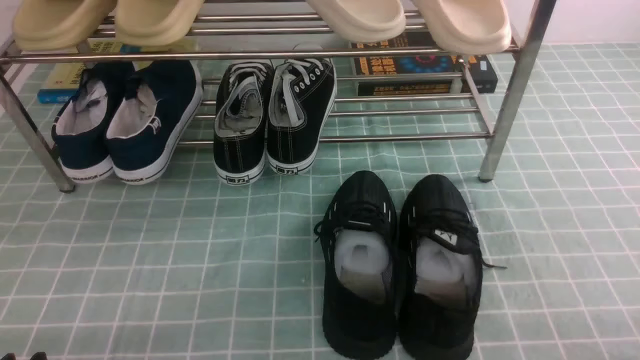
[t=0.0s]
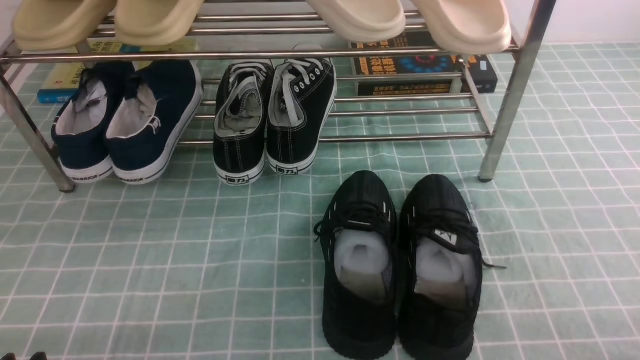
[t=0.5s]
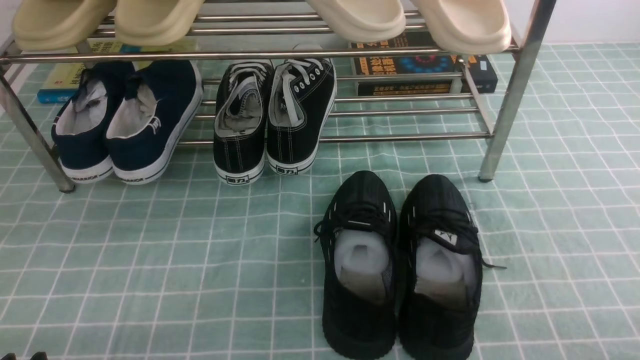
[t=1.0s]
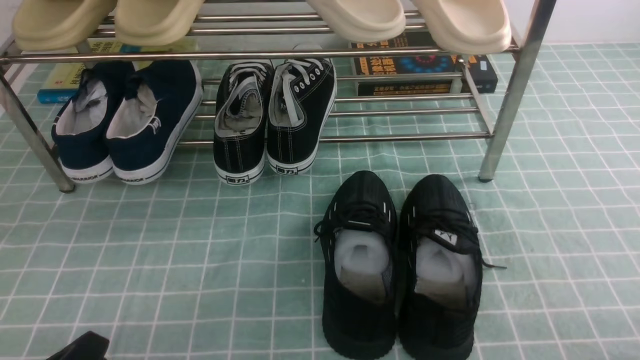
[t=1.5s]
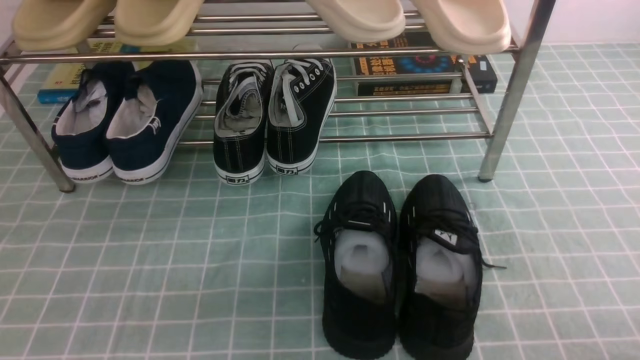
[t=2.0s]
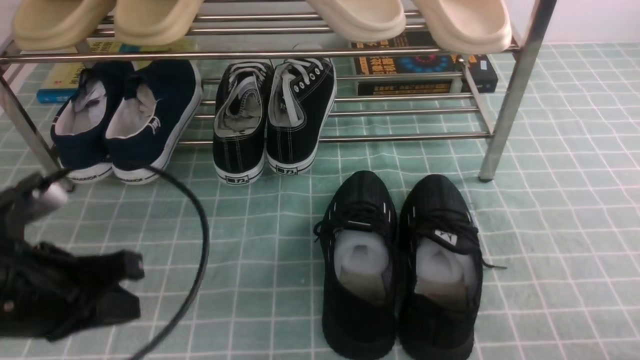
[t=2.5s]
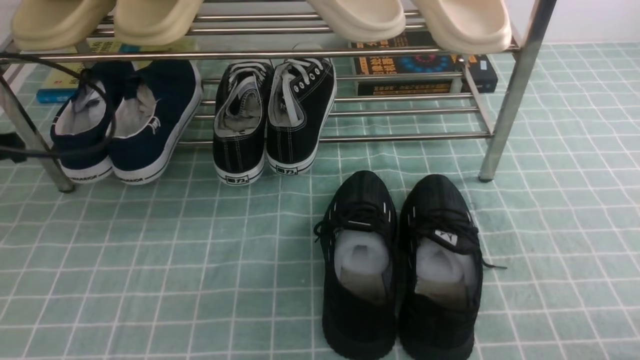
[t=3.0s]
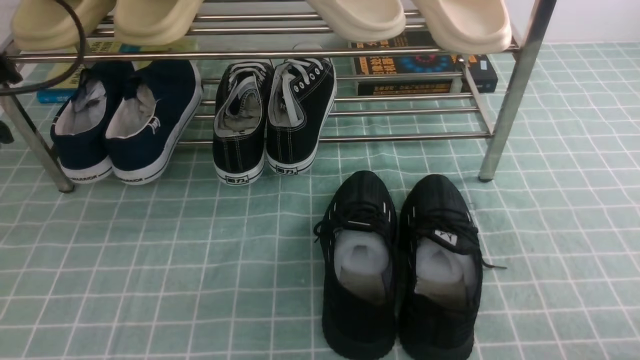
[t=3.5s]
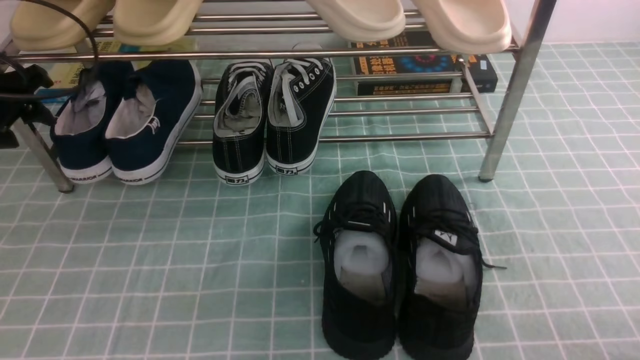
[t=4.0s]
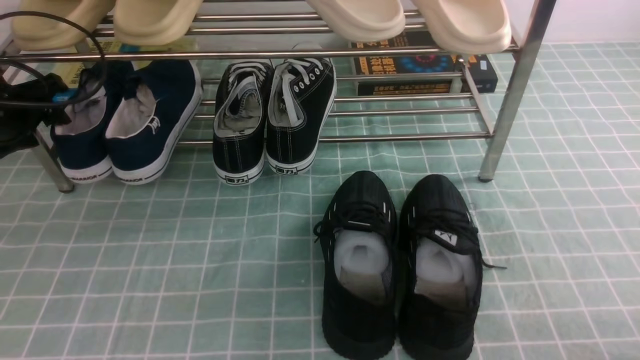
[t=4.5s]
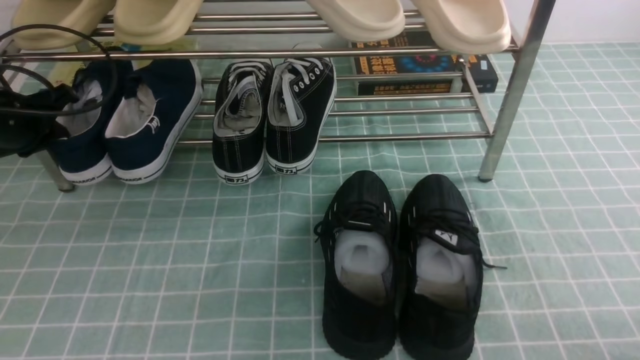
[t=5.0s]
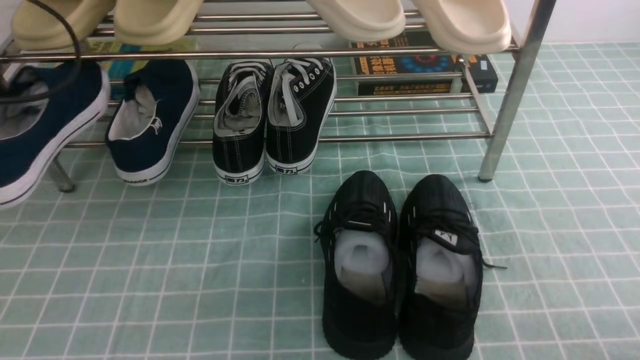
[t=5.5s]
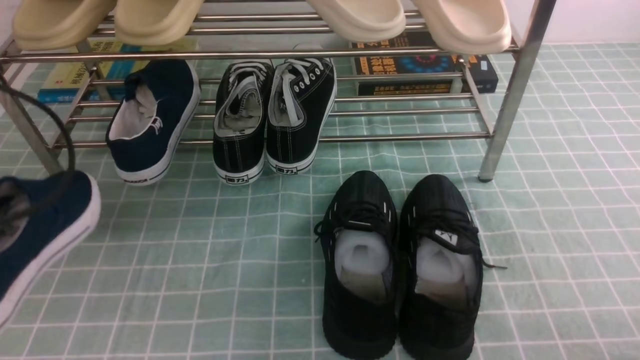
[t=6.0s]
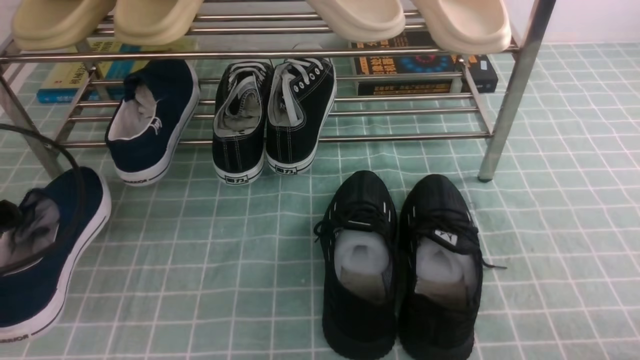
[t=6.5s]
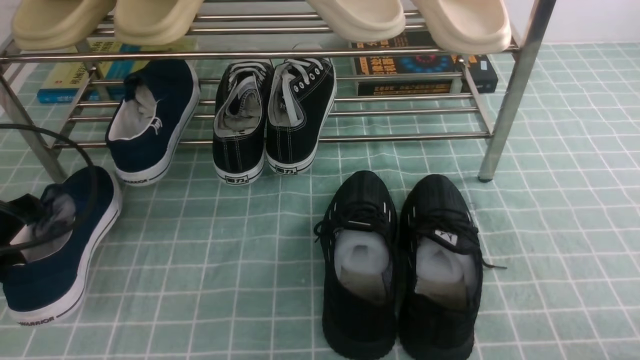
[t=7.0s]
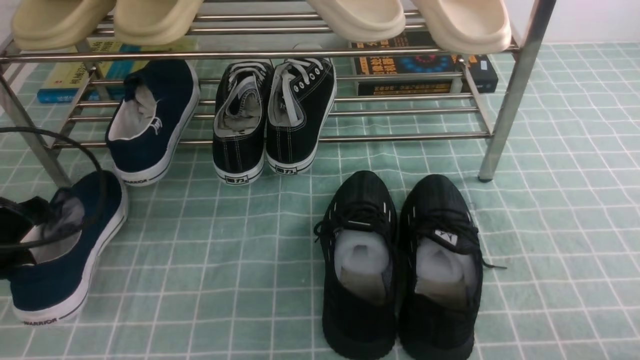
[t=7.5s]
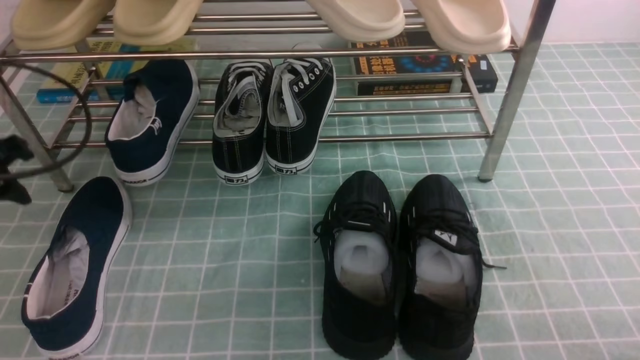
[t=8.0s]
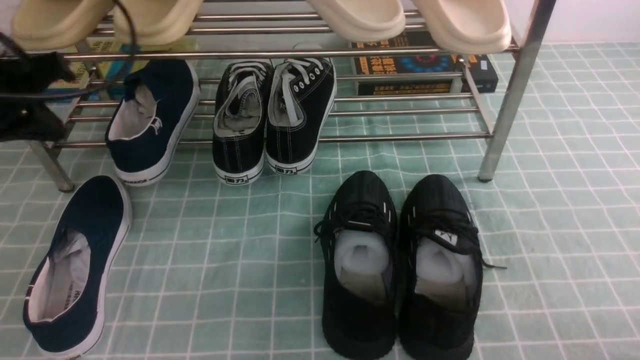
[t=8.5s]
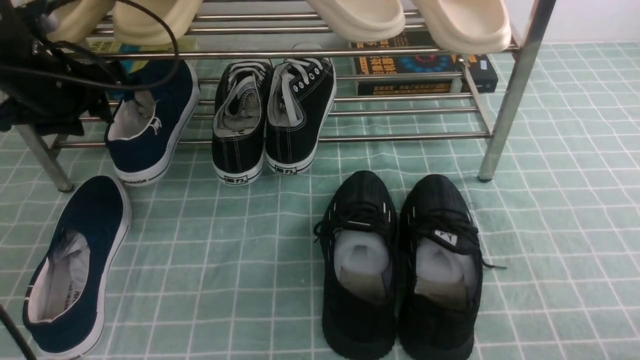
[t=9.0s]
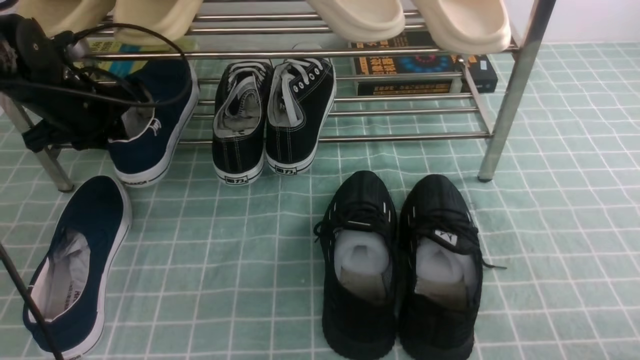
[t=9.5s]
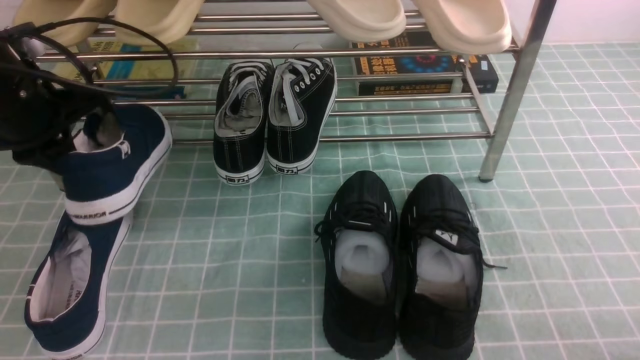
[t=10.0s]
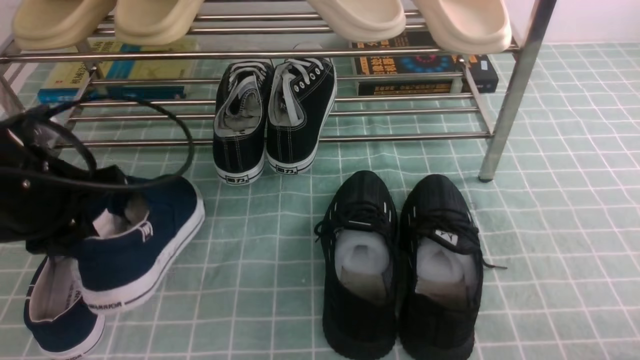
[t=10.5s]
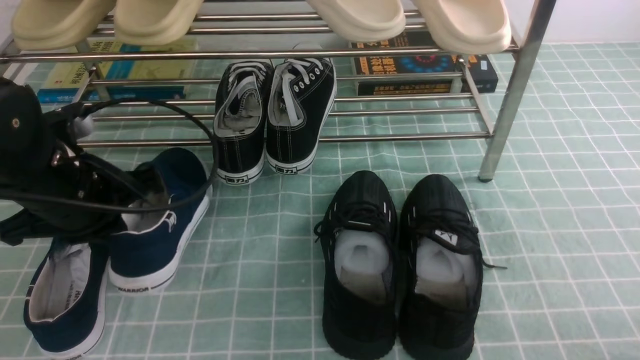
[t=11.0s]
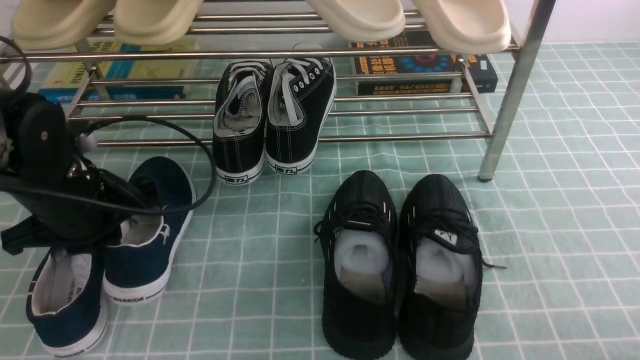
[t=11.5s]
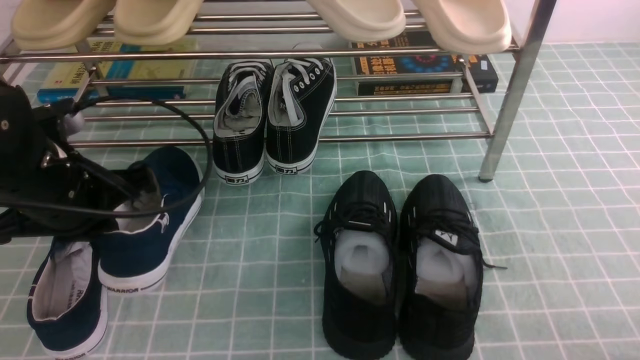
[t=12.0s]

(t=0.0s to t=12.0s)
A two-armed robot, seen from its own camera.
Step, t=0.0s - t=5.0s: use the left arm to clamp a shoe on the left side of the shoe rack.
Step, t=5.5s - t=7.5s: Use your left arm to remove the clamped shoe from the shoe rack and put it down.
Step, t=8.0s - t=9.0s: use the left arm to clamp a shoe on the left side of the shoe rack.
t=2.0s - t=4.0s: The left gripper shifts roughly 30 cm forward, and opens.
t=4.0s - t=6.0s: The left gripper shifts approximately 15 cm backward, and closes.
t=6.0s - t=8.0s: The left gripper moves forward, about 5 cm, reaches approximately 10 cm downward, then returns, and opens.
t=8.0s - t=10.0s: The left gripper heads forward and to the right, covering some 10 cm, and closes up.
t=10.0s - t=12.0s: The left gripper is displaced backward by roughly 5 cm.

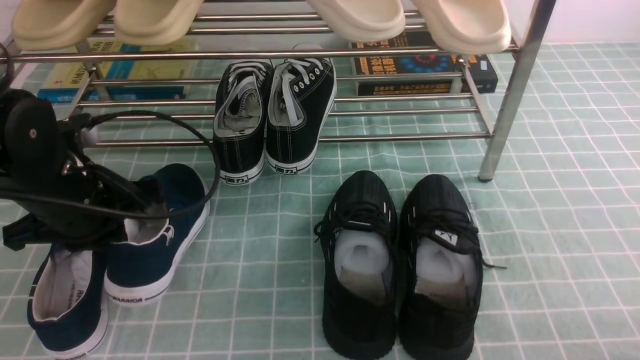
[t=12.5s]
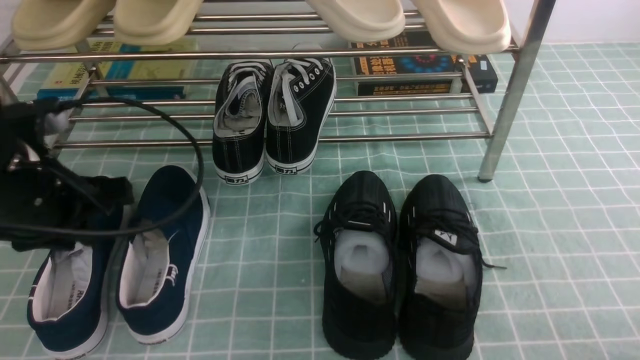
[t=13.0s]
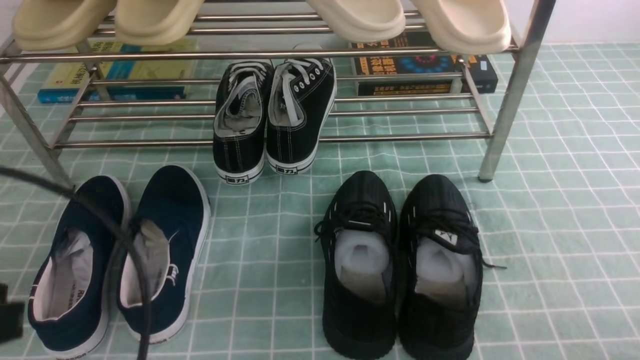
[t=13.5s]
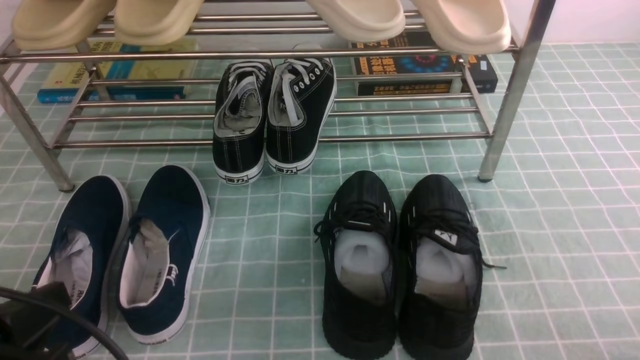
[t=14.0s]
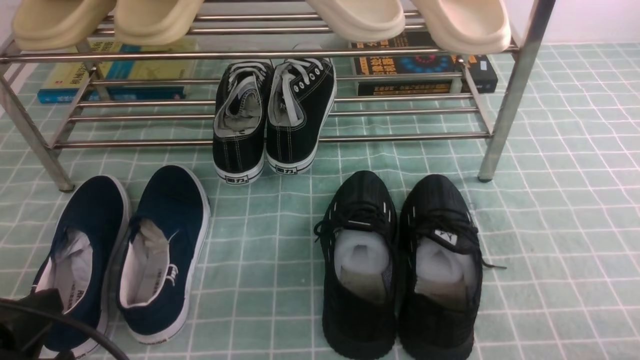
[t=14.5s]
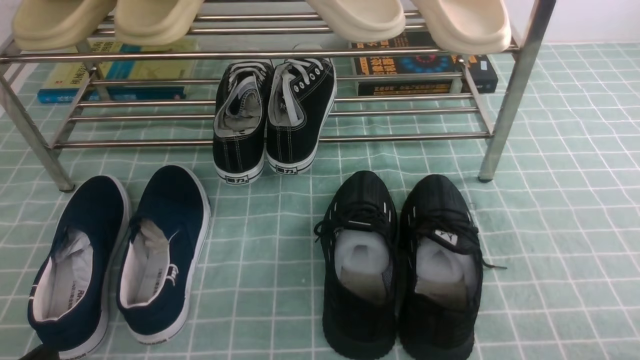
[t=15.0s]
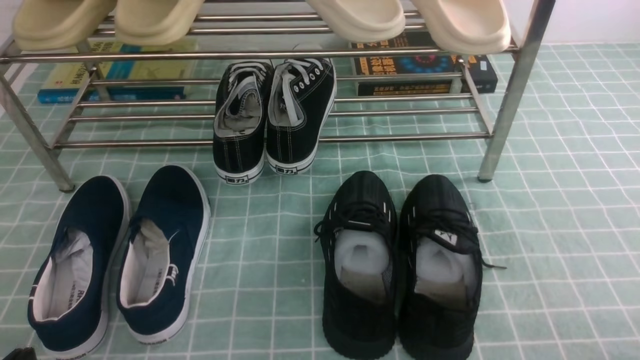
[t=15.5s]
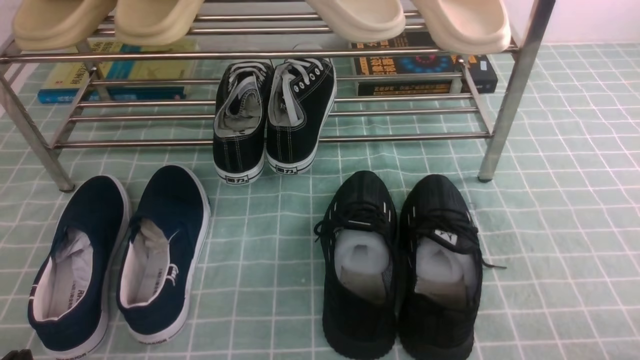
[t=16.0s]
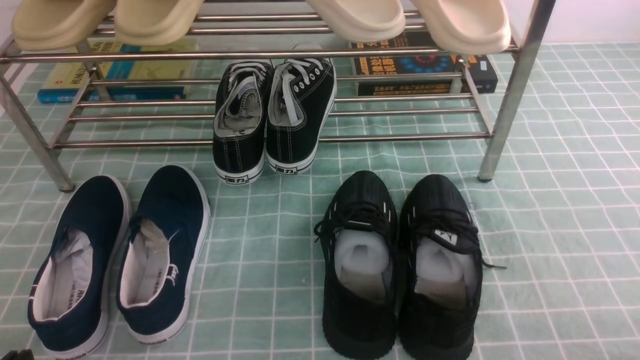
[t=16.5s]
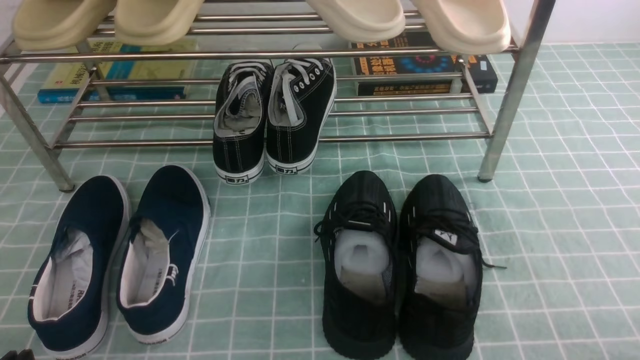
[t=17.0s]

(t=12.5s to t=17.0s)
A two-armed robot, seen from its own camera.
t=12.5s - t=14.5s: The left gripper goes roughly 20 cm backward.
t=14.5s - t=17.0s: The left gripper shifts about 5 cm downward.

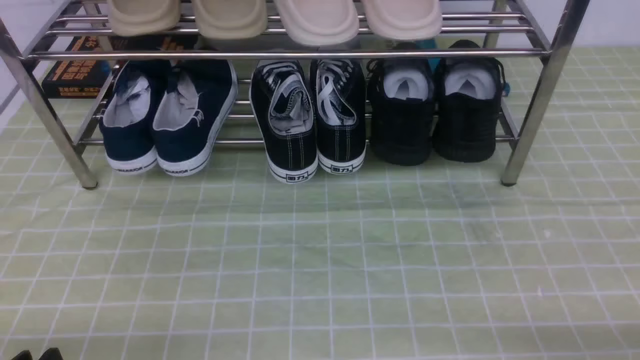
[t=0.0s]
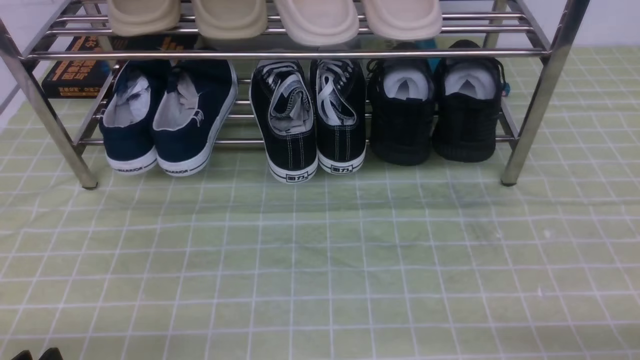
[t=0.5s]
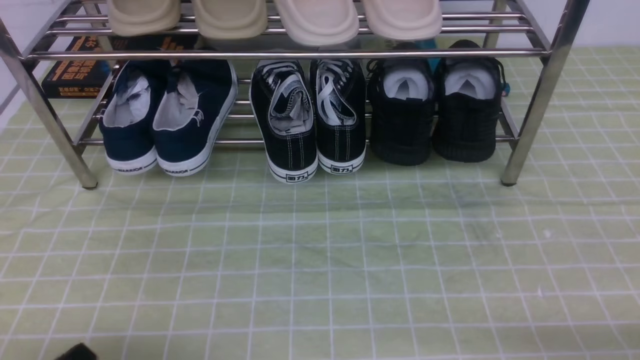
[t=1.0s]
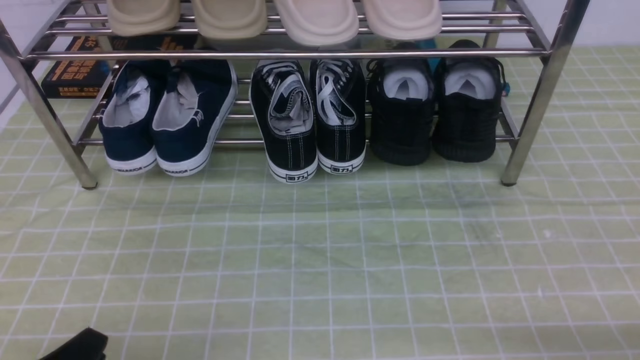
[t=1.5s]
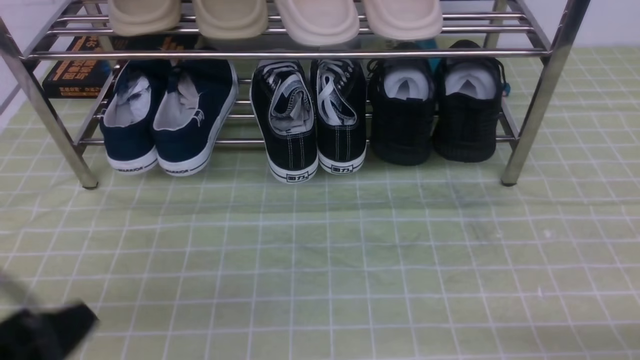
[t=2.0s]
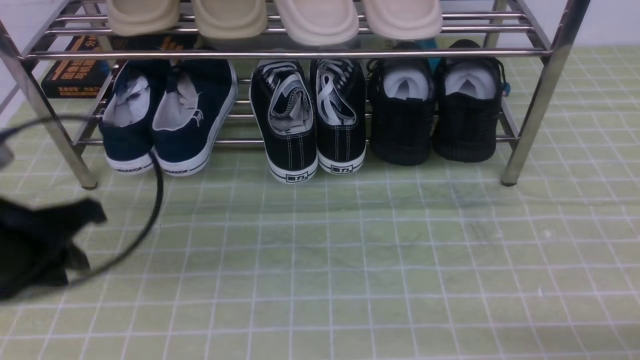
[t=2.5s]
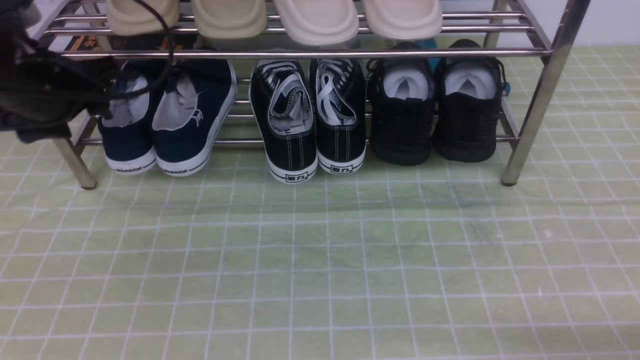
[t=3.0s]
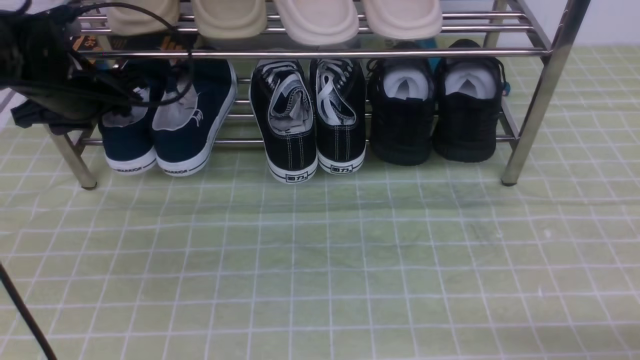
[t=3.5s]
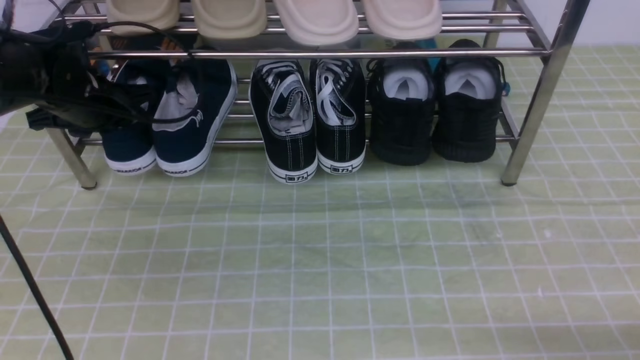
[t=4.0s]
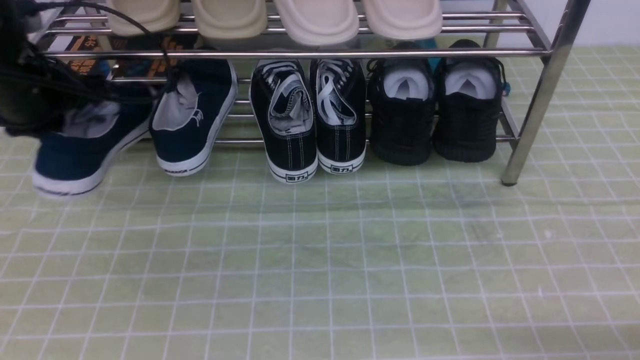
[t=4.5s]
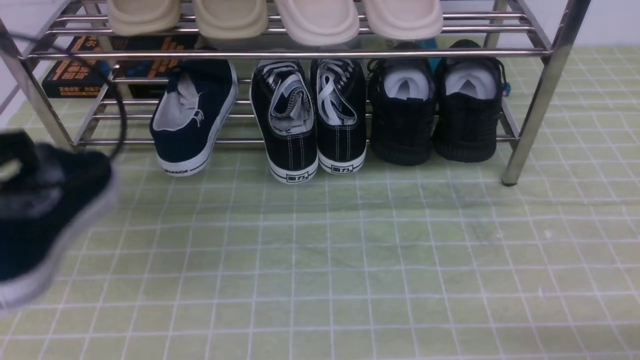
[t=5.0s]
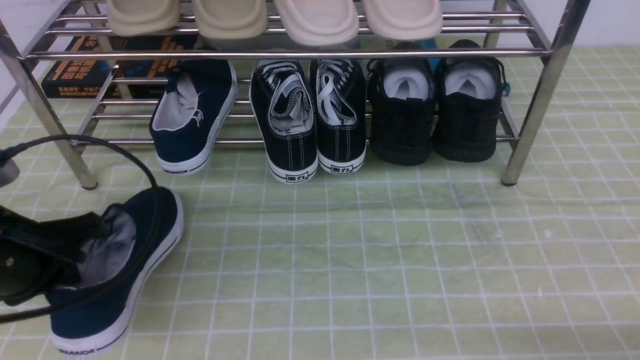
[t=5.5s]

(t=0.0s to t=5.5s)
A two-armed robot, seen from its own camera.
Step, t=0.0s - t=4.0s: use the left arm to clamp a shoe on the left side of the shoe rack.
t=0.0s - t=2.0s: The left gripper goes approximately 10 cm upward, and closes.
t=2.0s - t=3.5s: The left gripper heads forward, covering approximately 35 cm, and opens up.
t=3.5s - t=5.5s: The left gripper is displaced backward by some 20 cm, and closes up.
